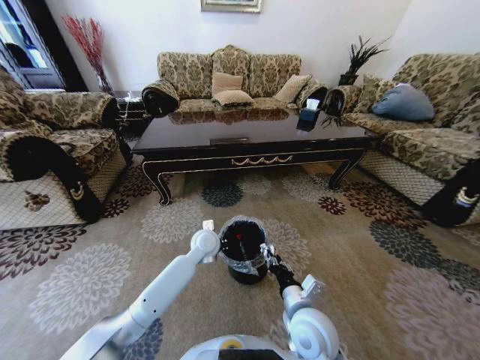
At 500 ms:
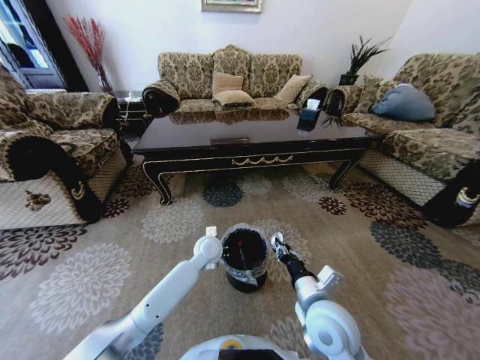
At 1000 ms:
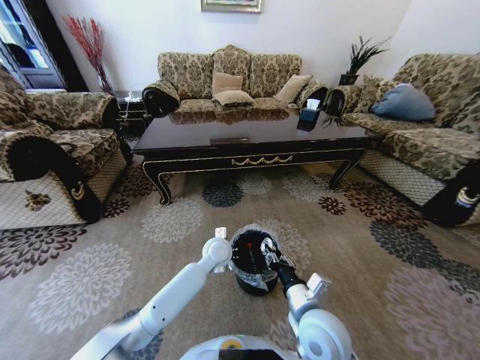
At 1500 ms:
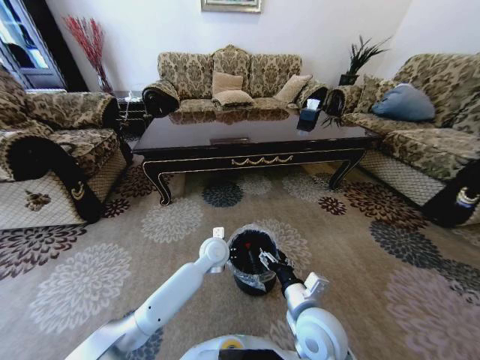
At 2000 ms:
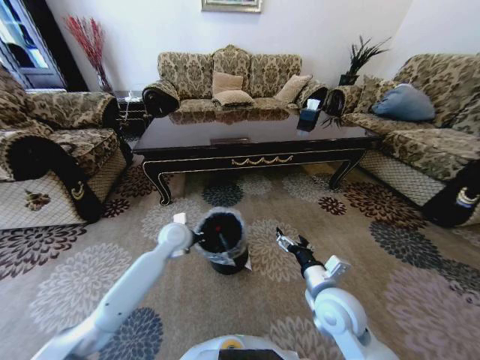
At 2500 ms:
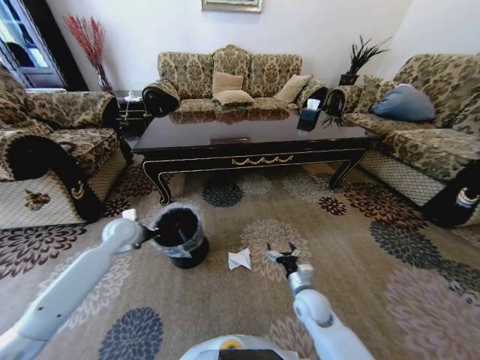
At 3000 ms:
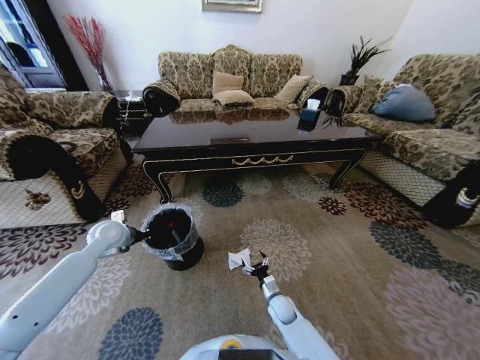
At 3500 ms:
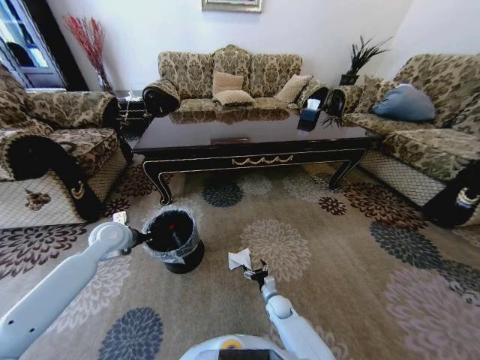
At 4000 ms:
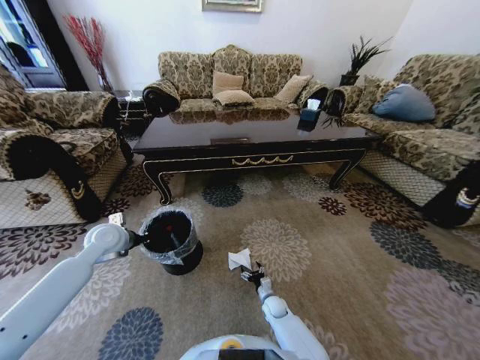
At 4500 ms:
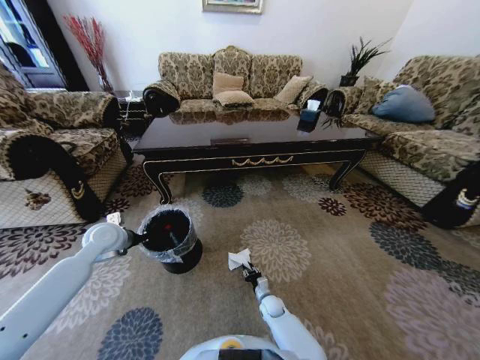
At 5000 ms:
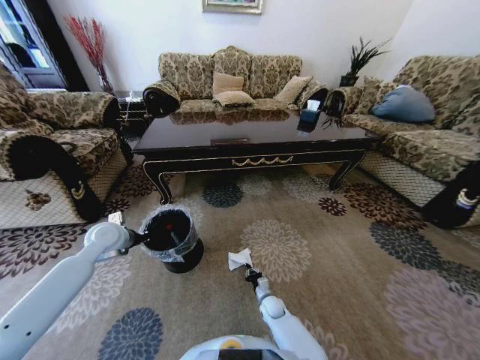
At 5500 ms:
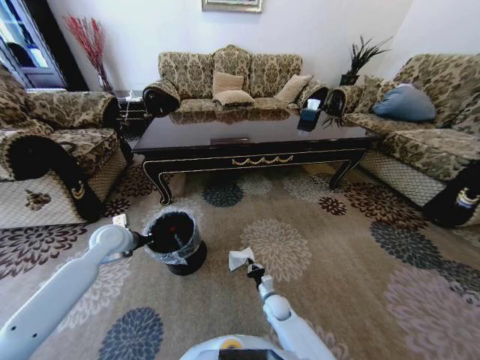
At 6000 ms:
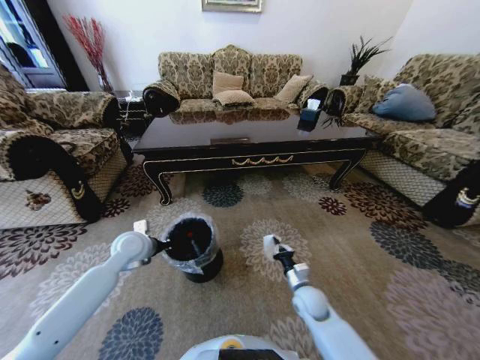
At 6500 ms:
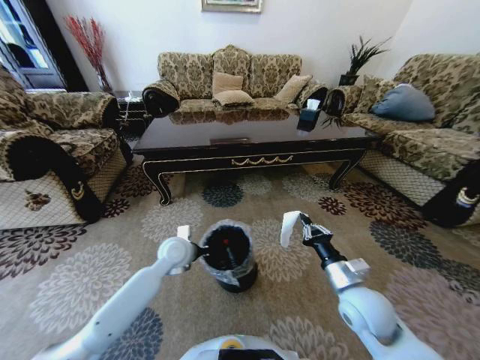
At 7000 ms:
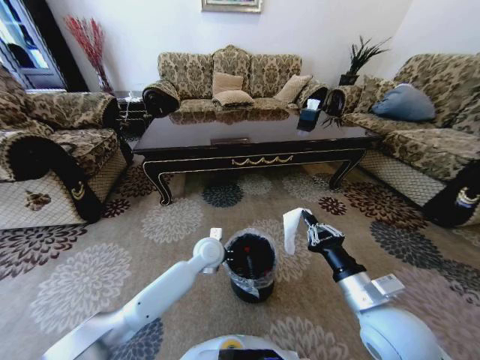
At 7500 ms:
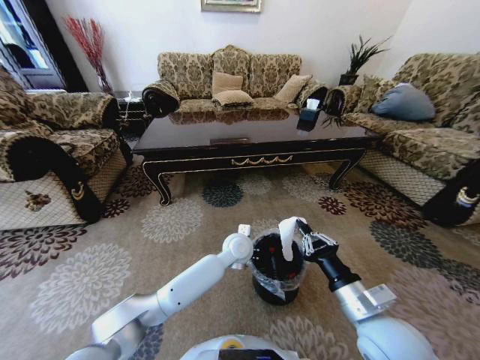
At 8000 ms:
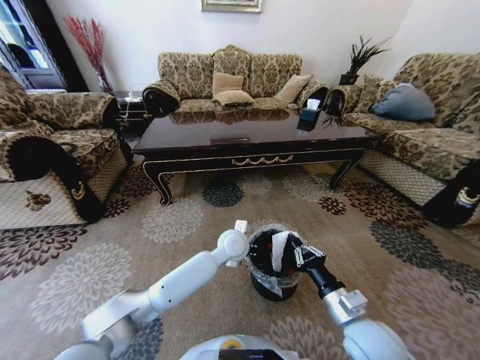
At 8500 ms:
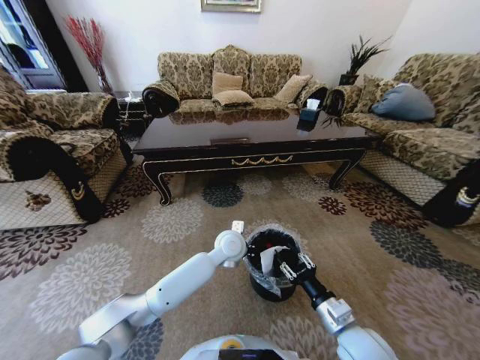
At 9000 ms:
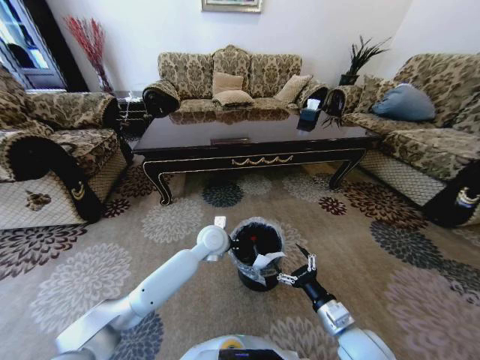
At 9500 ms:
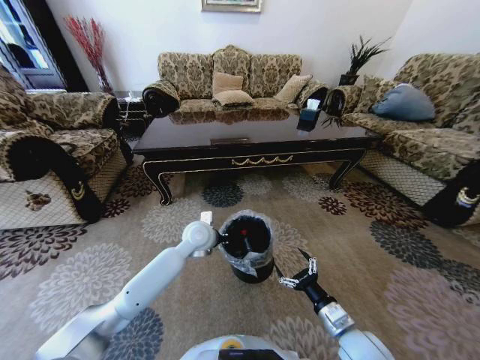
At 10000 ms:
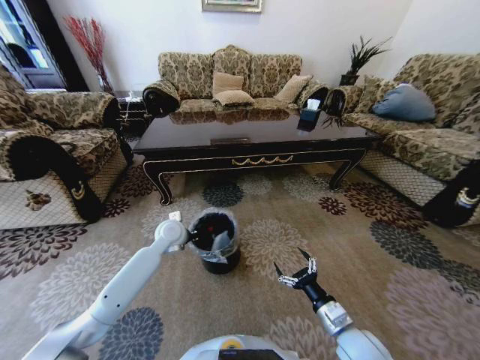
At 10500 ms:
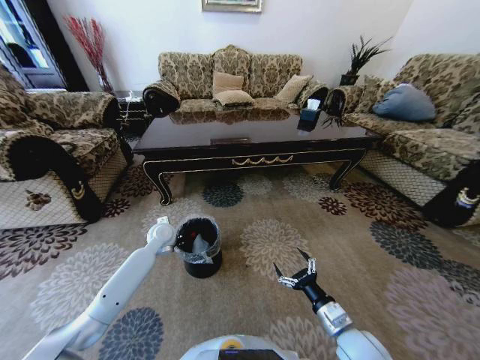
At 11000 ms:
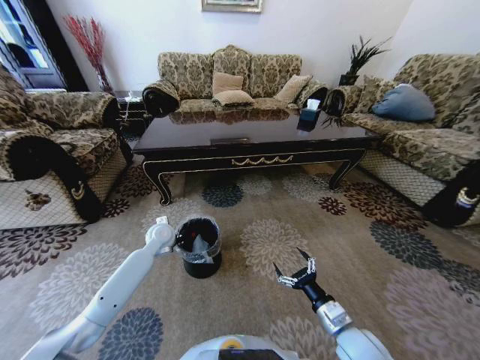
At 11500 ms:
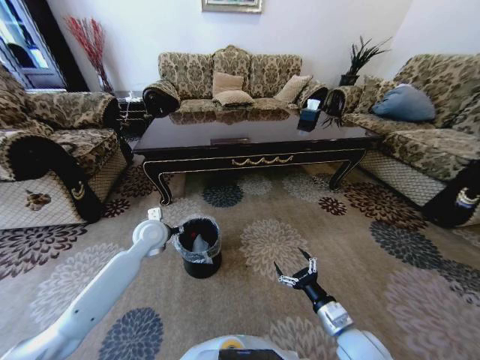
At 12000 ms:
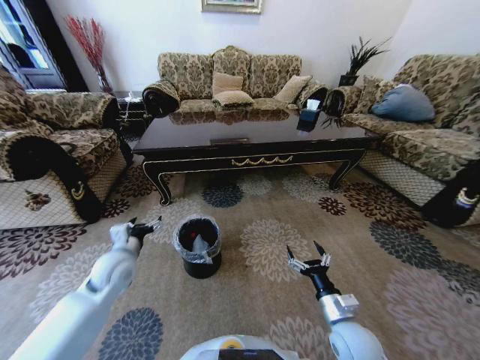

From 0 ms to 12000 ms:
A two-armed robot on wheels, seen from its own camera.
Task of the whole recording: Move to the front of the table and pick up the trash from the floor, then place it into the trash bin.
From 0 ms to 2000 ms: The left gripper travels to the left by approximately 10 cm; the right gripper goes approximately 5 cm to the right, and opens.
From 2000 ms to 4000 ms: The left gripper moves to the left, some 20 cm, while the right gripper moves downward, roughly 35 cm.
From 4000 ms to 6000 ms: The left gripper travels to the right by approximately 5 cm. The right gripper shifts some 20 cm upward and to the right, and closes its fingers.
From 6000 ms to 8000 ms: The left gripper goes some 30 cm to the right, while the right gripper shifts approximately 20 cm upward and backward.
From 8000 ms to 10000 ms: The right gripper shifts approximately 5 cm downward, and opens up; the left gripper goes about 20 cm to the left.
From 10000 ms to 12000 ms: The left gripper shifts some 15 cm backward and to the left, and opens up.

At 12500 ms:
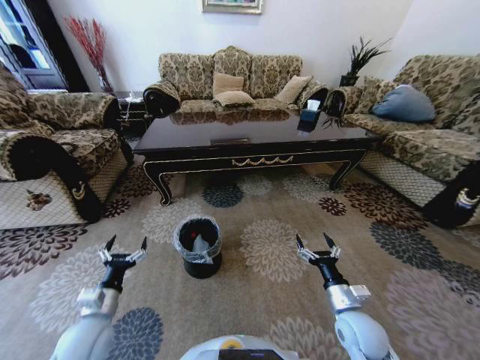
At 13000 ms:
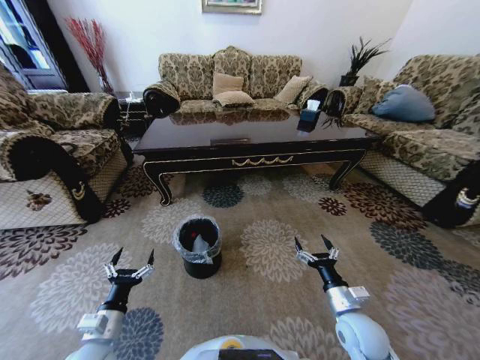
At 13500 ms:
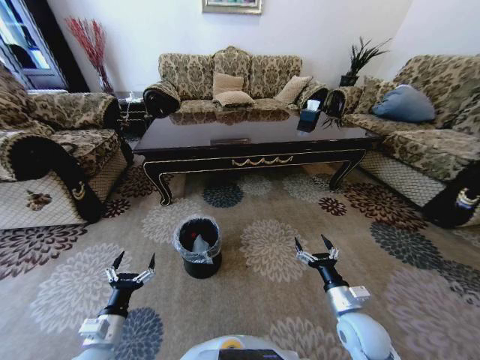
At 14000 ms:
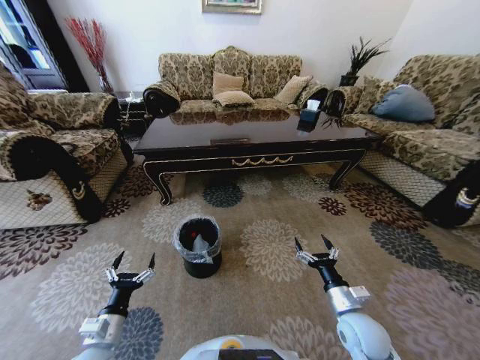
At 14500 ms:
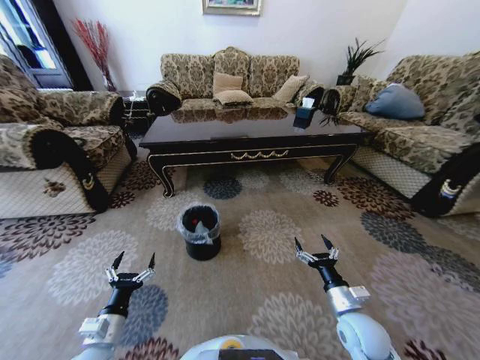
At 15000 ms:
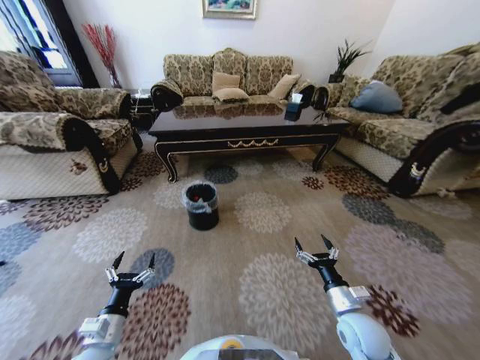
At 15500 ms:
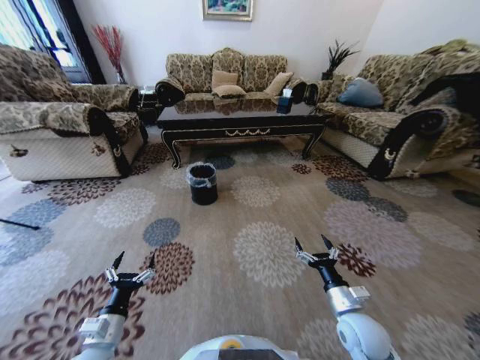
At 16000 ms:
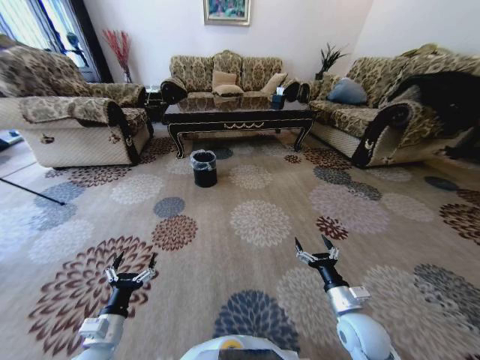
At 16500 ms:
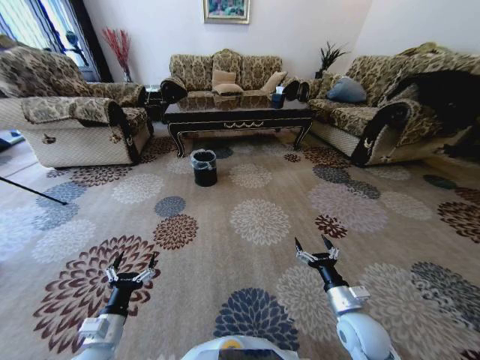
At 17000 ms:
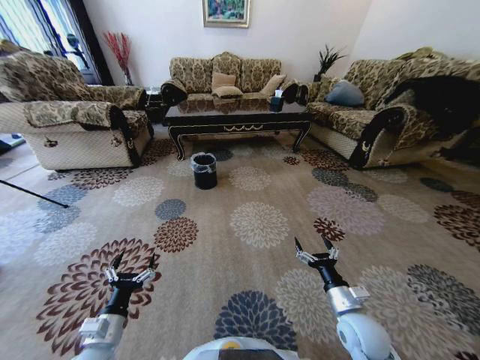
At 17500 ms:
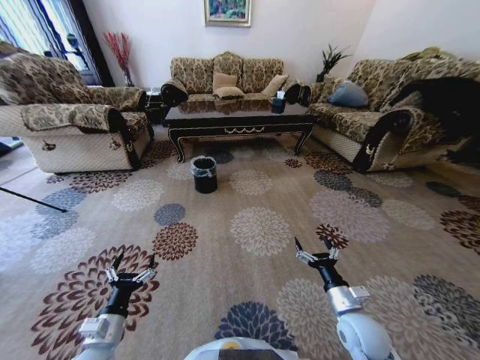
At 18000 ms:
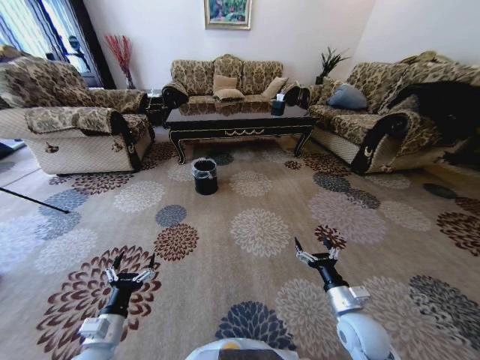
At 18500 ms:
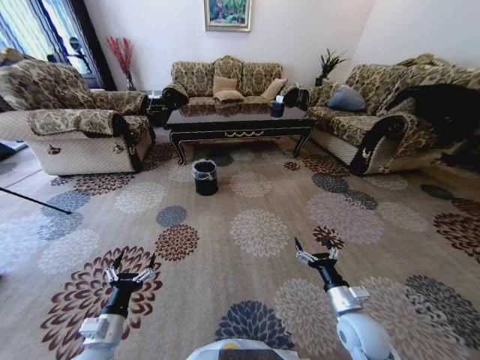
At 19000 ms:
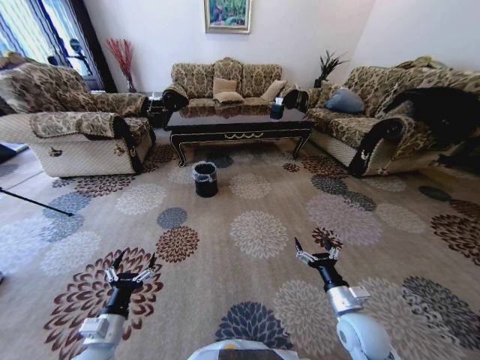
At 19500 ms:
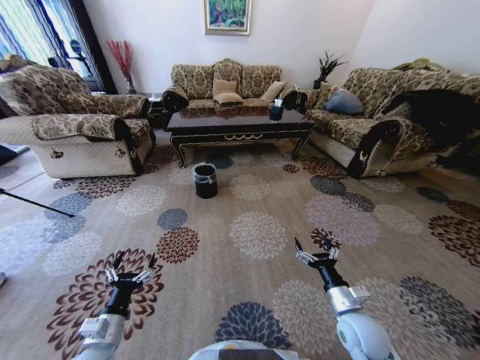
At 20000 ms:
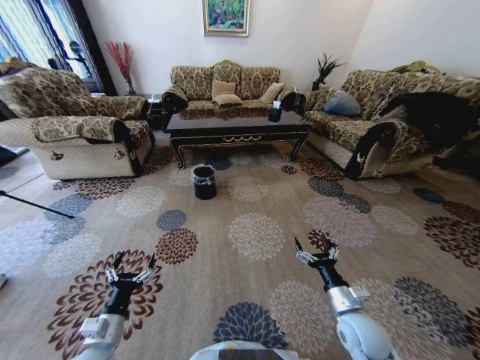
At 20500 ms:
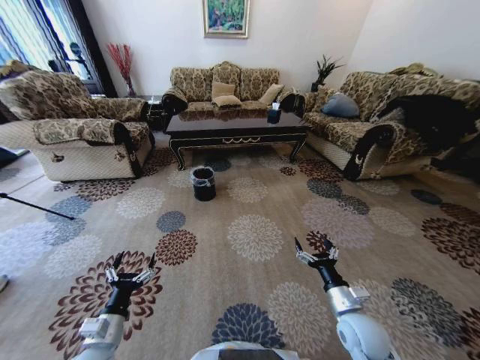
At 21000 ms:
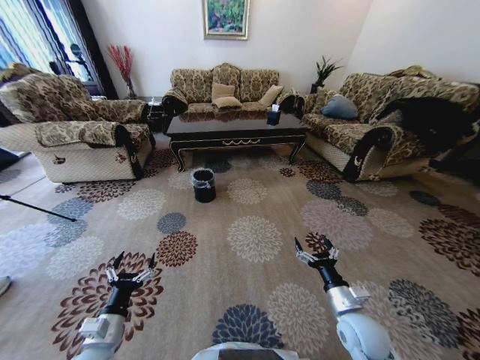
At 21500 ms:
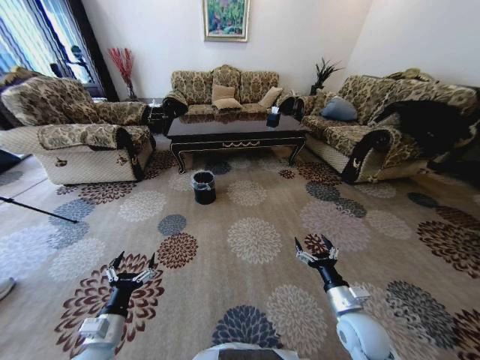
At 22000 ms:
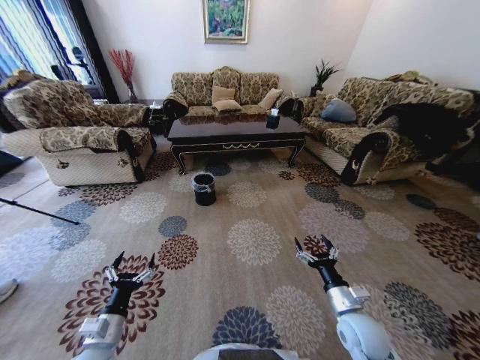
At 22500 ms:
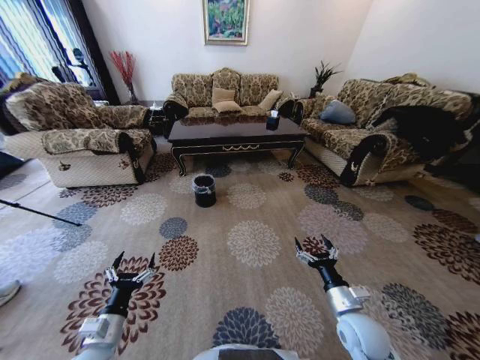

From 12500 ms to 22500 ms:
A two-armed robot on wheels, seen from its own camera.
Task of the whole recording: Move to the front of the table and pick up the trash from the floor, then place it into the trash bin.
From 12500 ms to 14500 ms: The left gripper moves approximately 5 cm.
